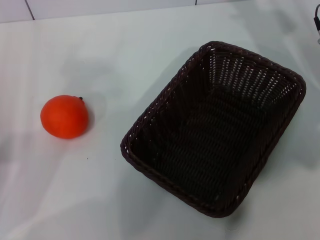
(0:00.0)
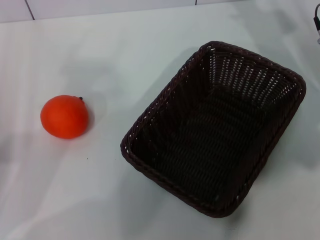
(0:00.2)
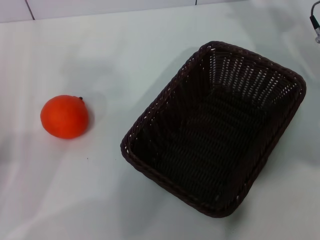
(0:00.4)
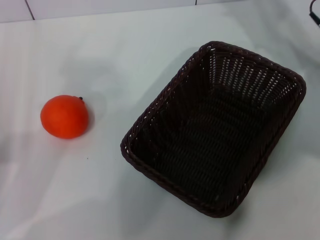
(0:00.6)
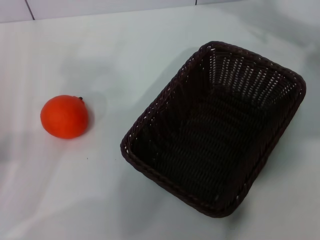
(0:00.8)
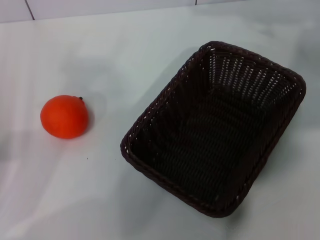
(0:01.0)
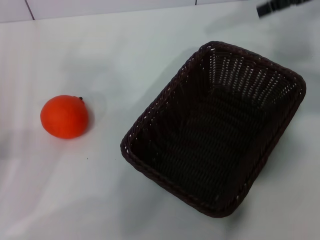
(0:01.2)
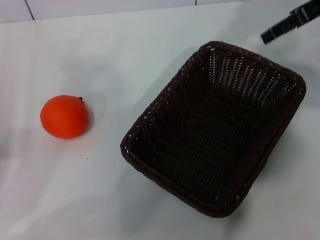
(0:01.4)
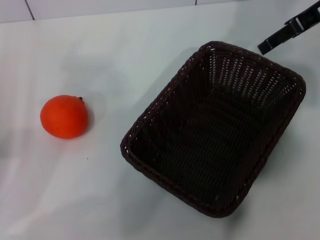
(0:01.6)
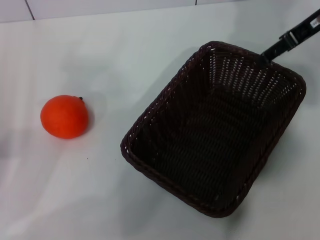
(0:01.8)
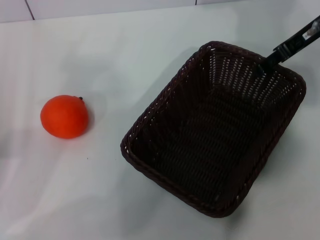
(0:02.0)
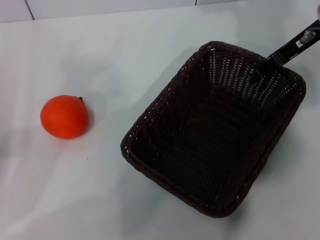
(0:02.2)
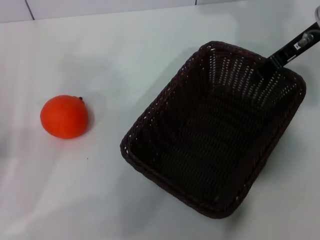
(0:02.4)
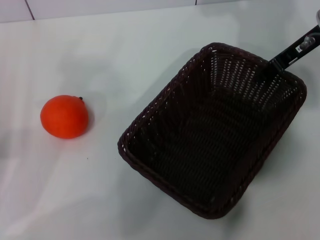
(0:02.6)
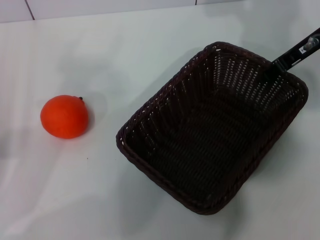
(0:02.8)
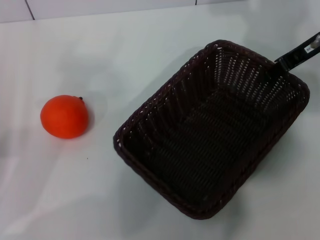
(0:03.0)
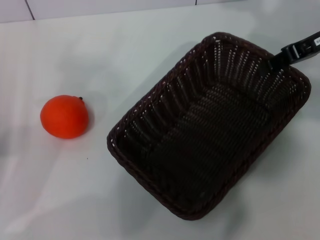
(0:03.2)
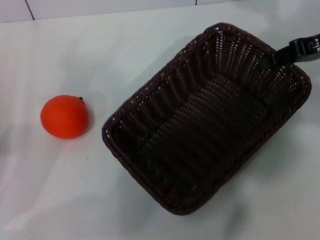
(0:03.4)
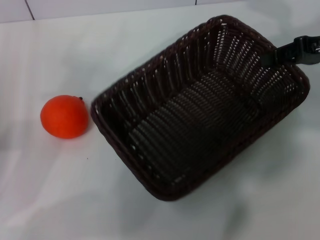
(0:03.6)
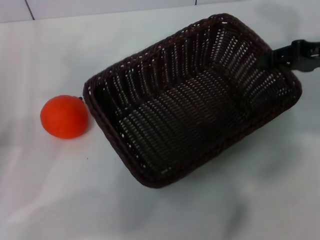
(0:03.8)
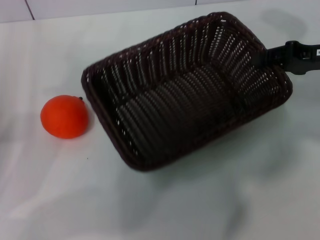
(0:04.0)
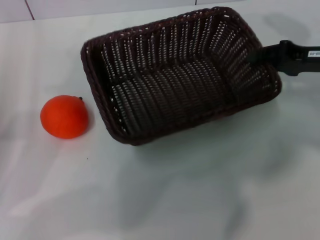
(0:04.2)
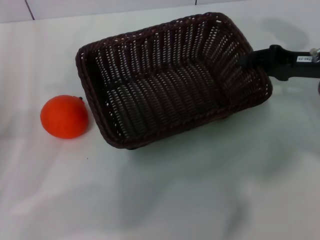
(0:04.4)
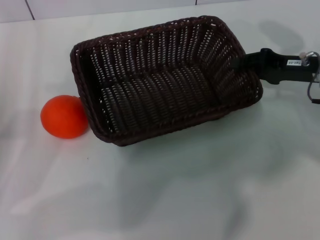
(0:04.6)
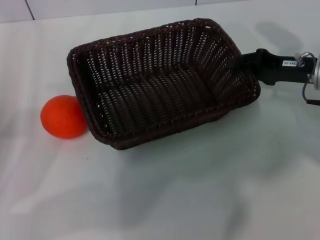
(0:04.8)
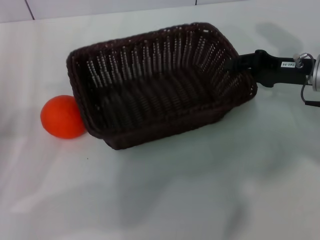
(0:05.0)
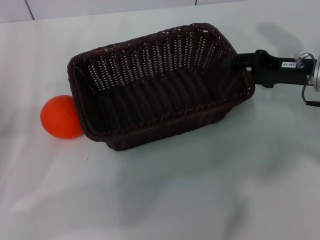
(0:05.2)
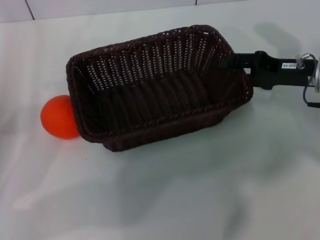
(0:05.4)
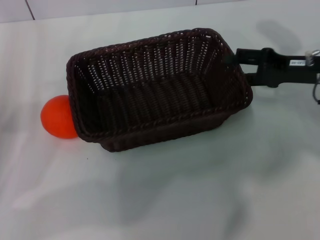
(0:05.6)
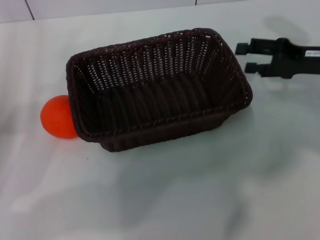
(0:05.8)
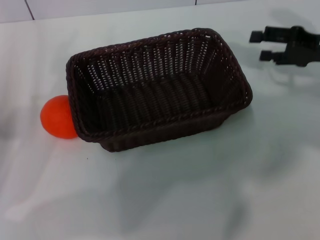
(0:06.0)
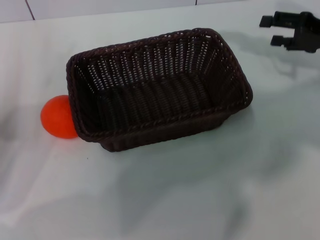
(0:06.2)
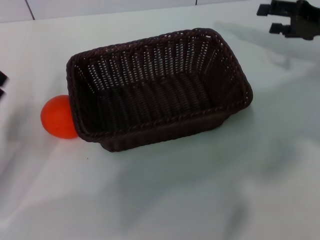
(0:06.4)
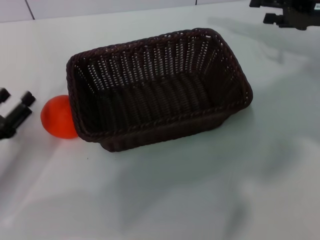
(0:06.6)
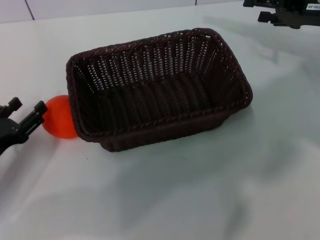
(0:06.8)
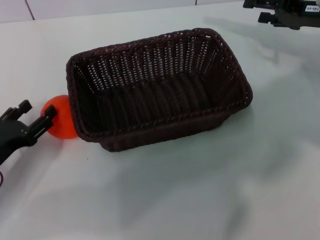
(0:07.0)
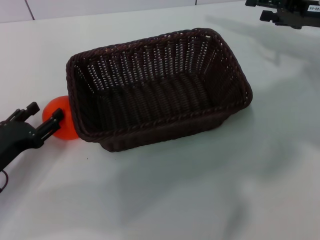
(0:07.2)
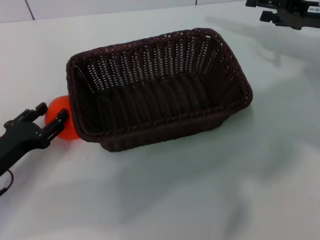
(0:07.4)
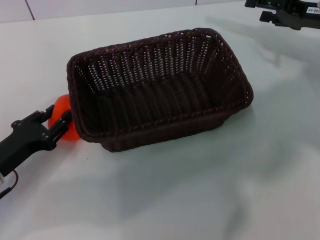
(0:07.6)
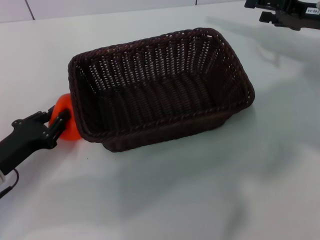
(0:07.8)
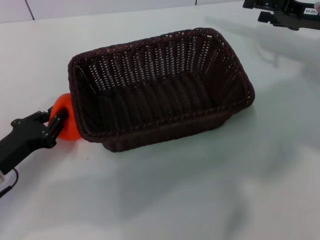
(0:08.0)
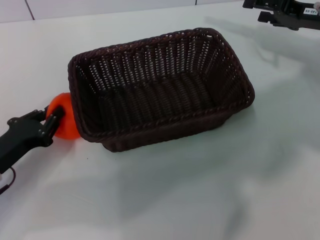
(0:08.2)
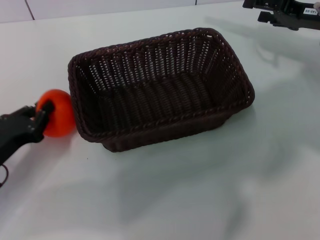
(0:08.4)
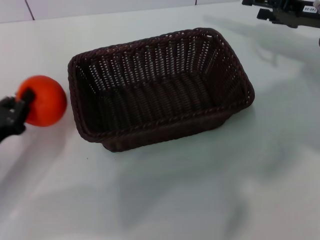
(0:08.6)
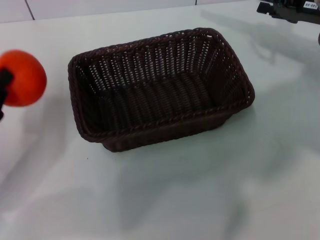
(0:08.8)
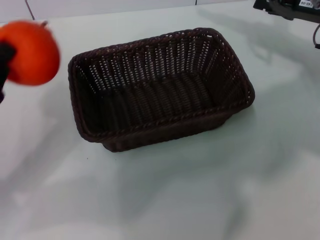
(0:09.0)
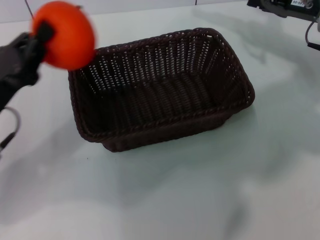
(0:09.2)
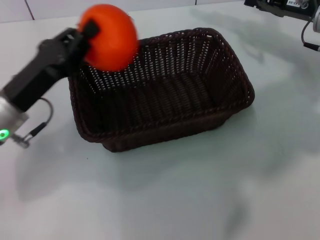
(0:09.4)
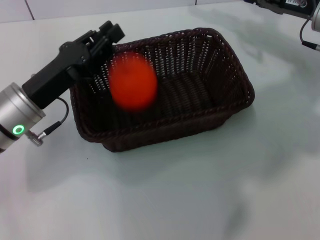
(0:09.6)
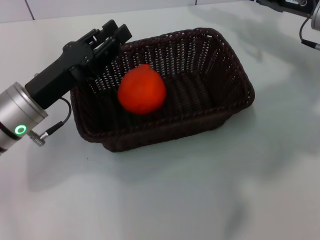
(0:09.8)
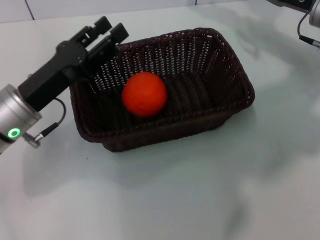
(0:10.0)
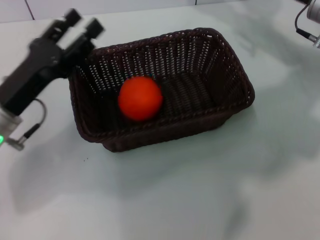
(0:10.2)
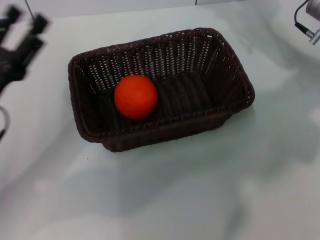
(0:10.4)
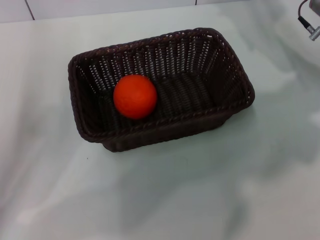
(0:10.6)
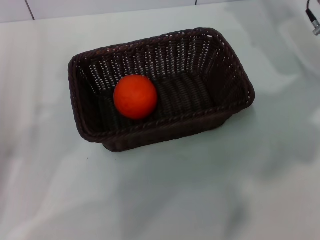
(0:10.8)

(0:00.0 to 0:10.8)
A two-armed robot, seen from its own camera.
Task of the whole recording: the right gripper pick up the black basket and place it horizontally in the middle of the table, the left gripper pick up the orange and place it into the black basket.
Step, 0:00.0 - 0:03.6: Pick up the dark basket with the right gripper.
Step, 0:03.8 - 0:06.0: Place the dark basket in the center of view with the right gripper.
Step, 0:06.2 - 0:08.6: Pick up the orange with the left gripper.
Step, 0:08.8 - 0:10.0: Place the orange into the dark basket with the left gripper.
0:00.0 - 0:01.6: The right gripper shifts approximately 10 cm upward.
0:01.6 - 0:03.0: The right gripper moves downward, about 5 cm, and closes.
0:03.0 - 0:04.6: The right gripper goes about 10 cm downward and backward.
0:04.6 - 0:06.2: The right gripper ends up roughly 5 cm from where it was, and opens.
0:06.2 - 0:07.8: The left gripper changes place by roughly 5 cm, and closes its fingers.
0:07.8 - 0:09.2: The left gripper goes some 5 cm upward, and closes up.
0:09.2 - 0:10.8: The left gripper heads backward, covering roughly 5 cm, and opens its fingers.
